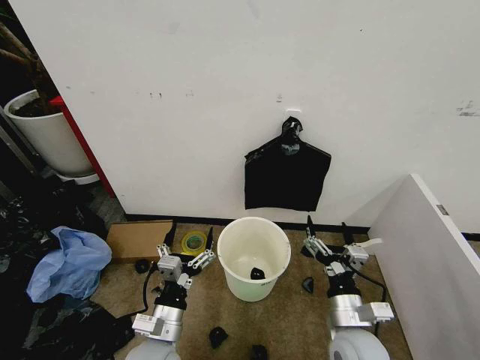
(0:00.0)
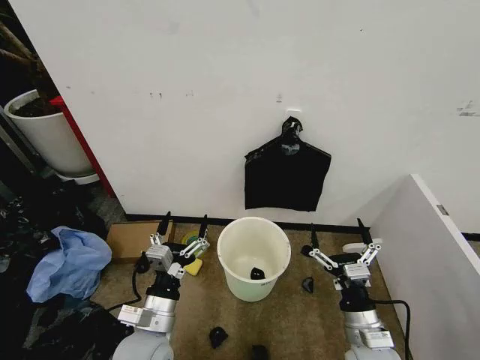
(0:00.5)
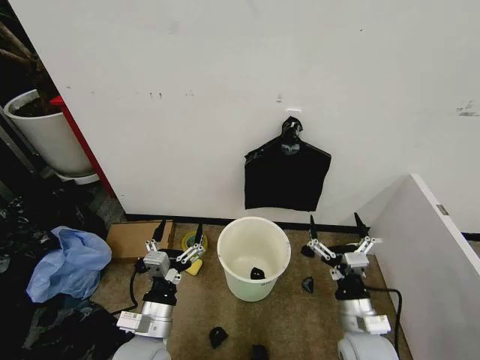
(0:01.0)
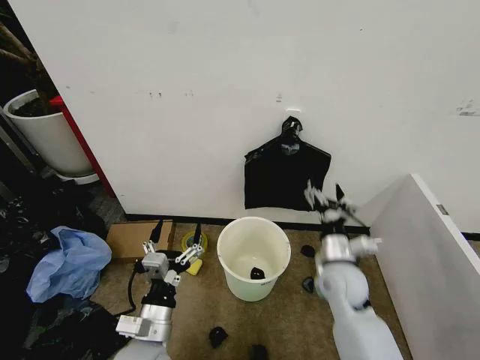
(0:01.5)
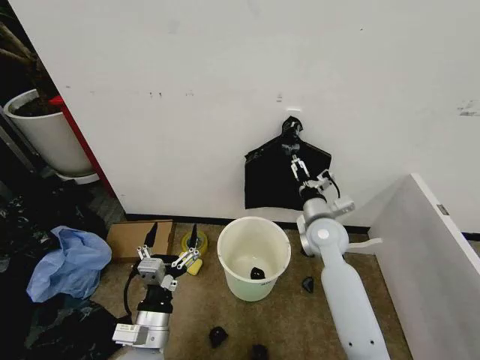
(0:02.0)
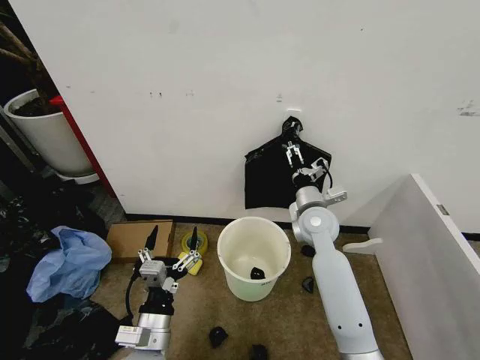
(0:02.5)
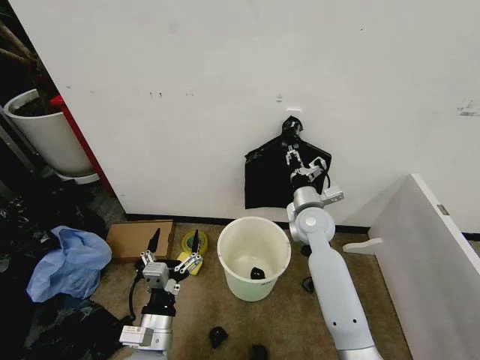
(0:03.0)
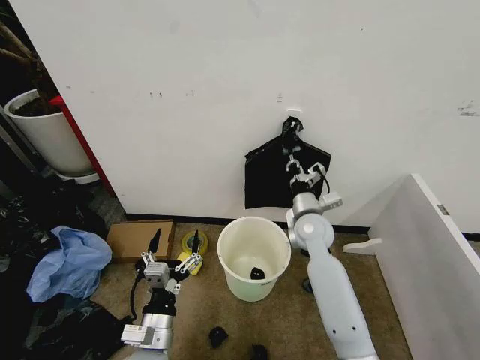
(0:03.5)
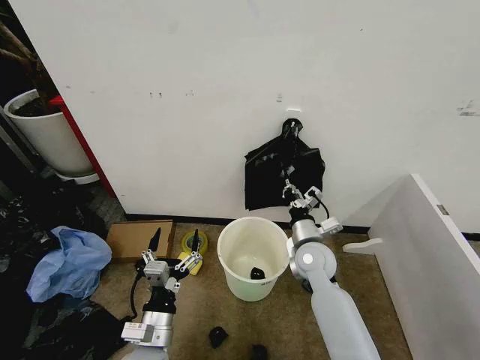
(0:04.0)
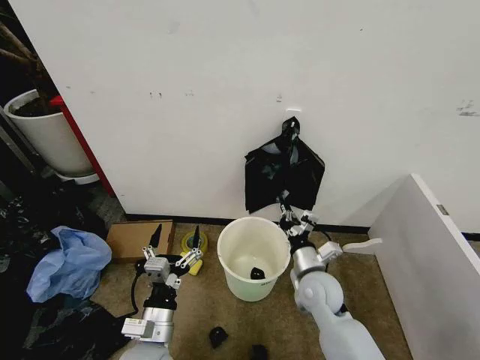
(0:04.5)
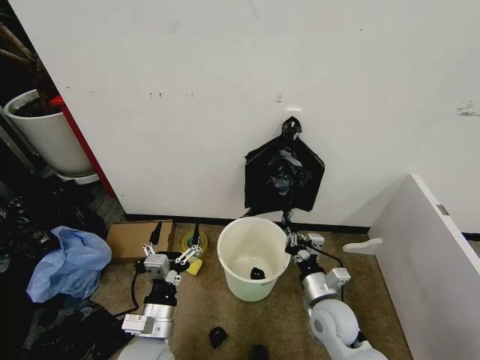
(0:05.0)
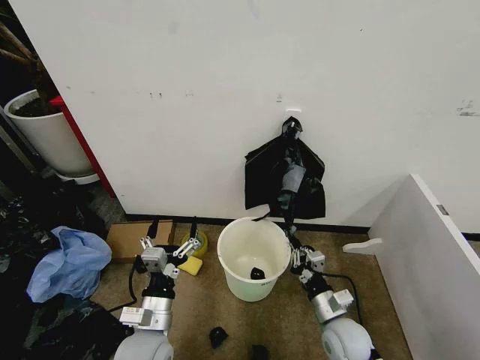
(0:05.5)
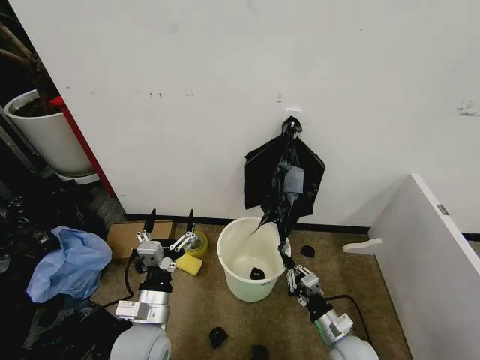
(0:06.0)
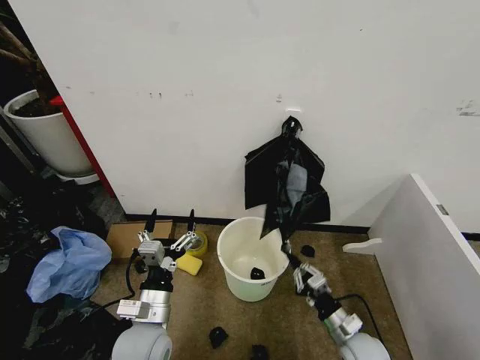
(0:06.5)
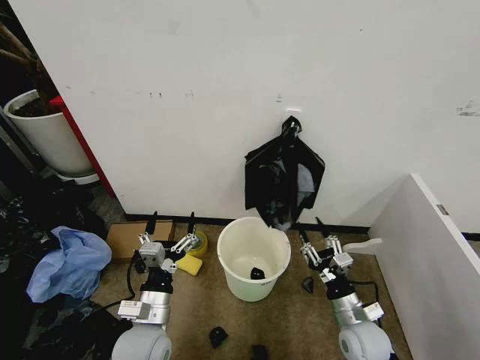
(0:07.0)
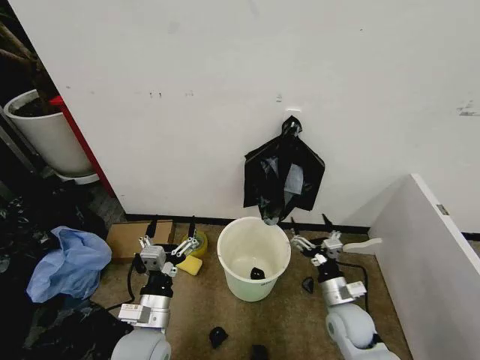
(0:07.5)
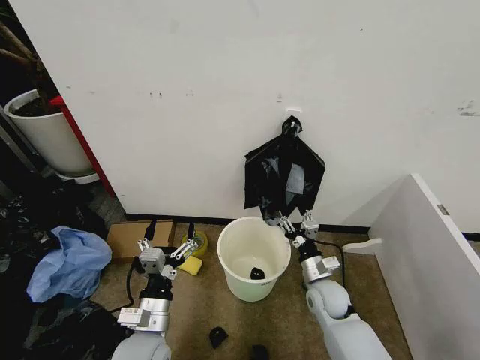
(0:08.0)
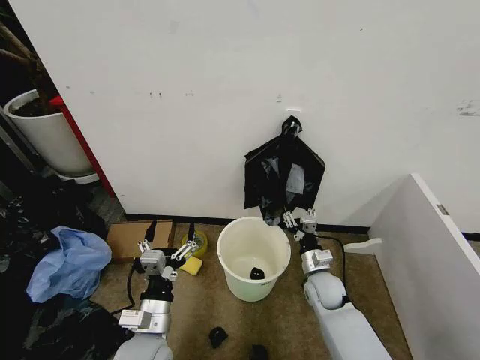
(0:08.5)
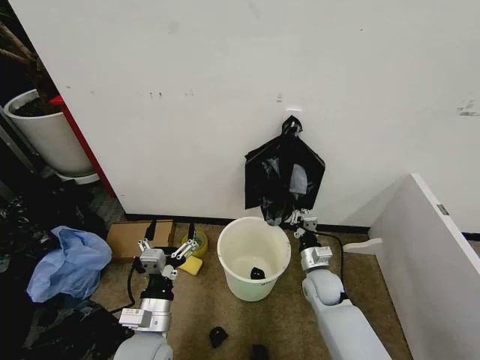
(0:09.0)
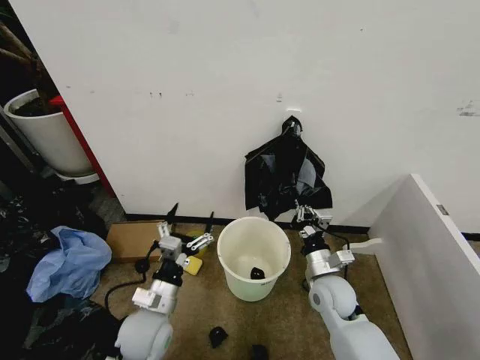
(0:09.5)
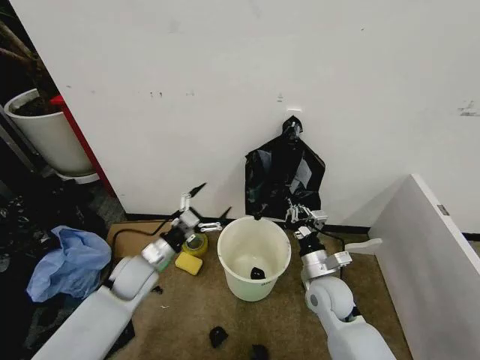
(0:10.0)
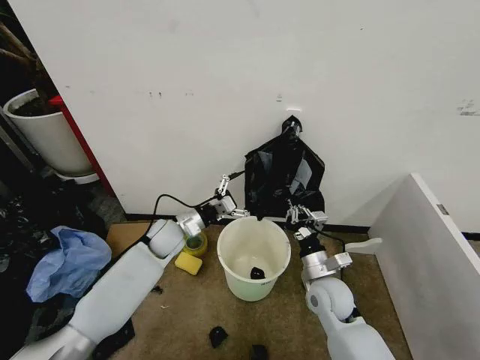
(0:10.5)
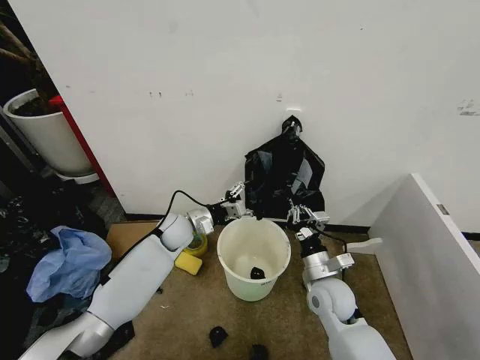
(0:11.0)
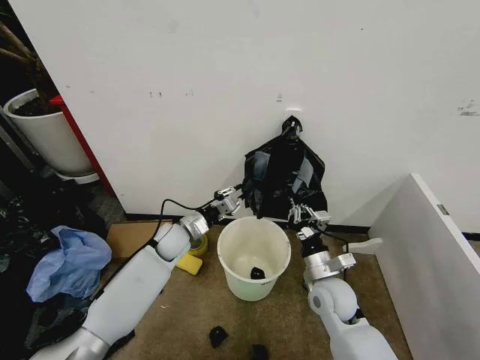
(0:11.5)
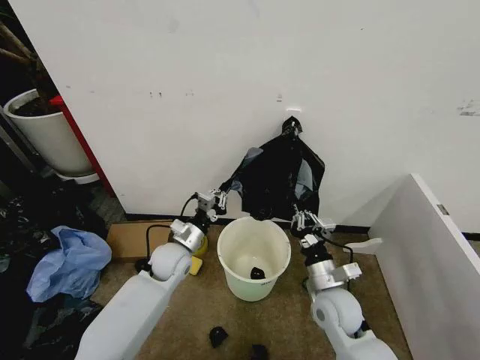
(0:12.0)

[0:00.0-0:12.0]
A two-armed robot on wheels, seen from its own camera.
Task of the whole recording: Place the garbage bag over the trash bin.
0:02.0 to 0:04.0: The right gripper travels downward by about 5 cm, and closes.
0:04.0 to 0:06.0: The right gripper goes roughly 25 cm backward, downward and to the right.
0:06.0 to 0:08.0: The right gripper travels forward by about 10 cm, and opens its fingers.
0:08.0 to 0:10.0: The right gripper shifts some 5 cm upward, and closes its fingers; the left gripper heads forward and to the left, covering about 15 cm.
0:10.0 to 0:12.0: The left gripper goes about 5 cm to the right, moves about 15 cm forward and comes back, and closes up.

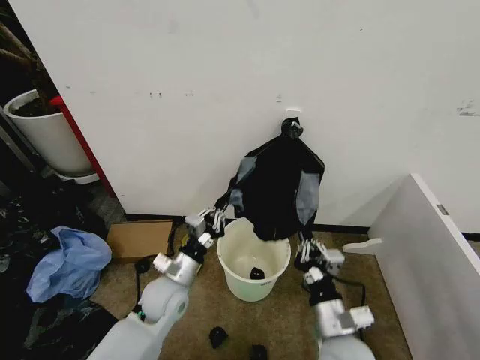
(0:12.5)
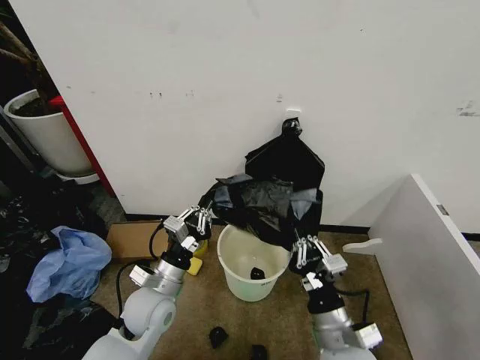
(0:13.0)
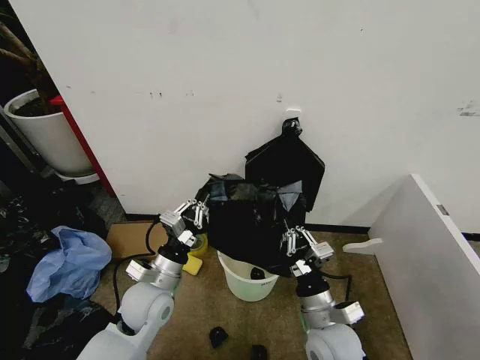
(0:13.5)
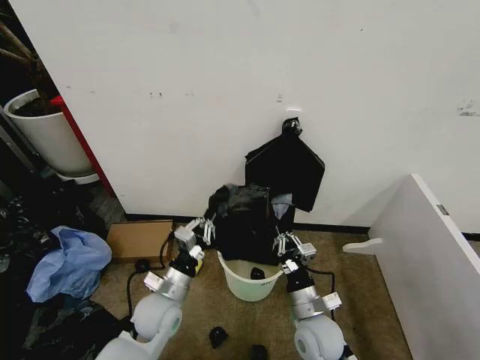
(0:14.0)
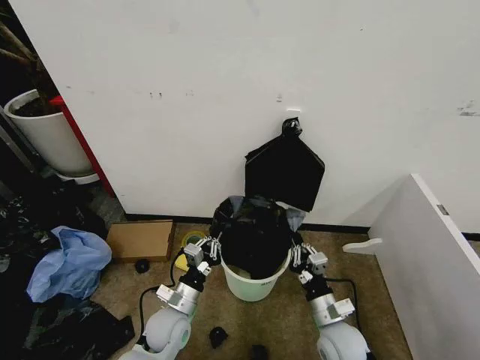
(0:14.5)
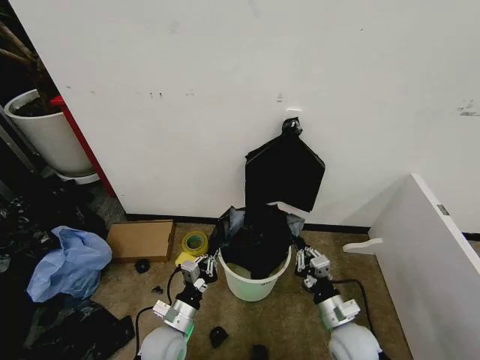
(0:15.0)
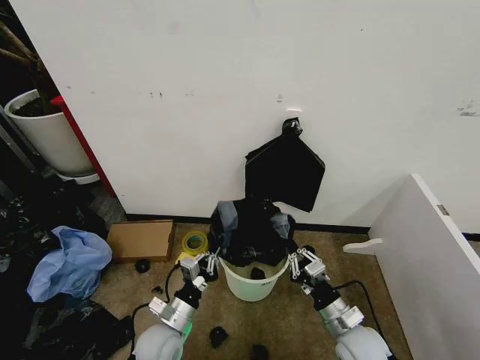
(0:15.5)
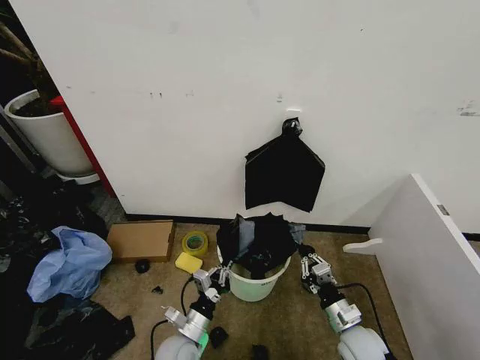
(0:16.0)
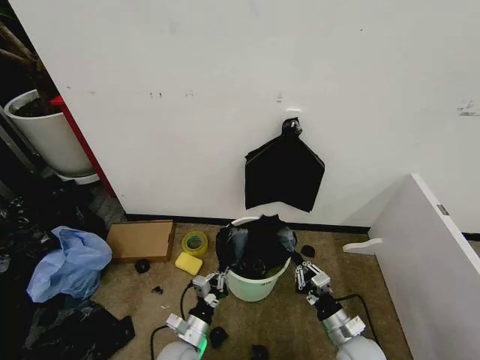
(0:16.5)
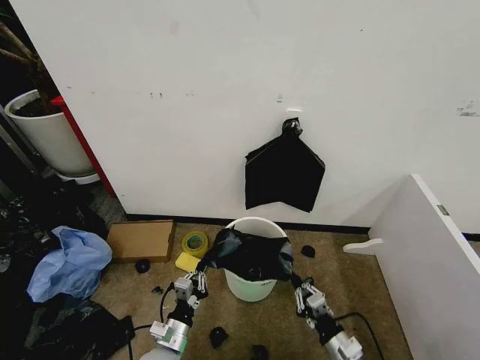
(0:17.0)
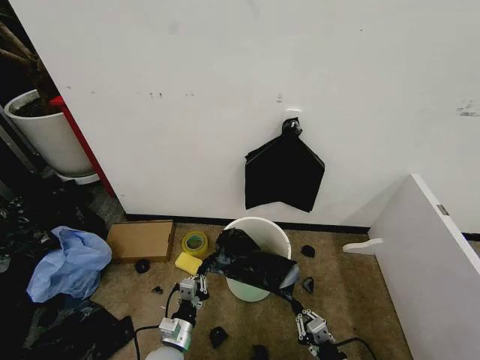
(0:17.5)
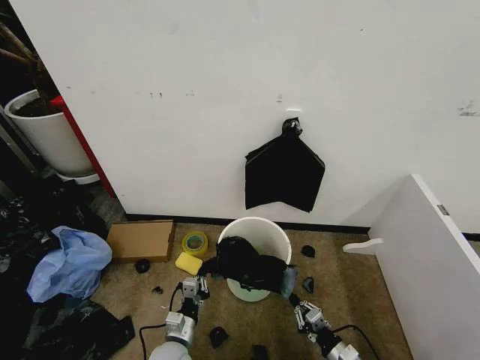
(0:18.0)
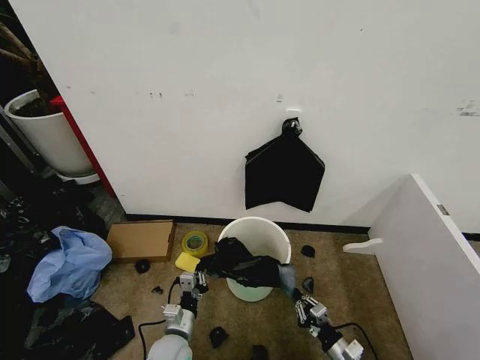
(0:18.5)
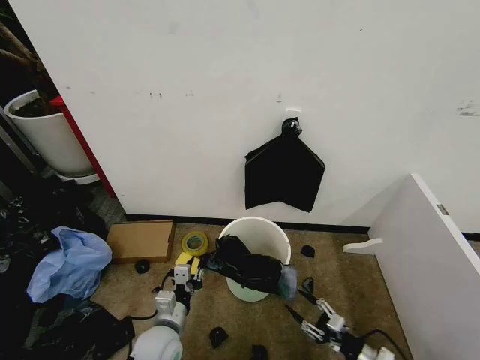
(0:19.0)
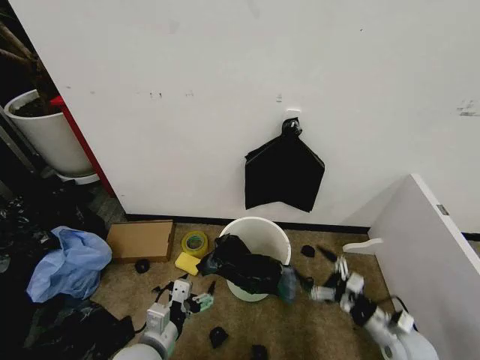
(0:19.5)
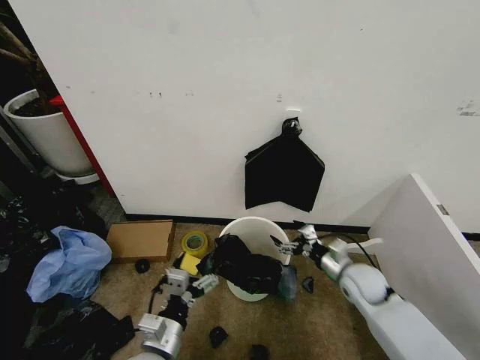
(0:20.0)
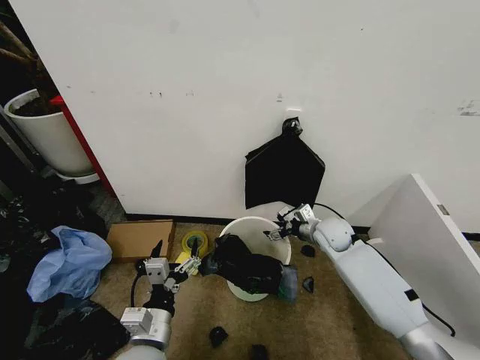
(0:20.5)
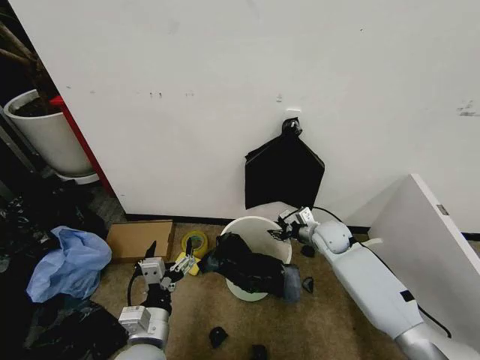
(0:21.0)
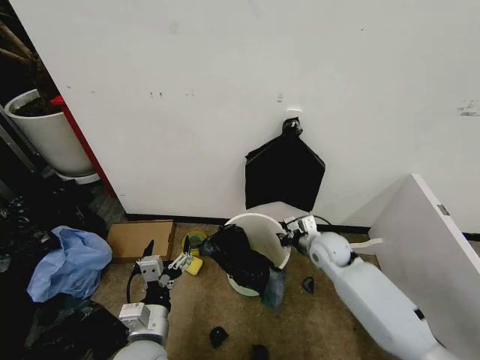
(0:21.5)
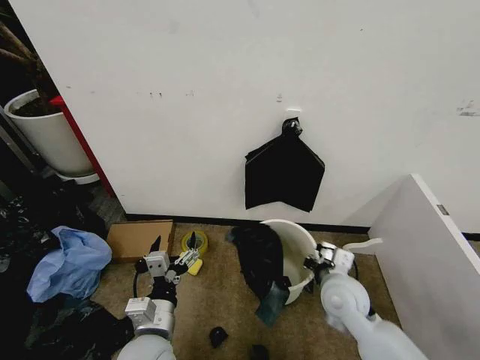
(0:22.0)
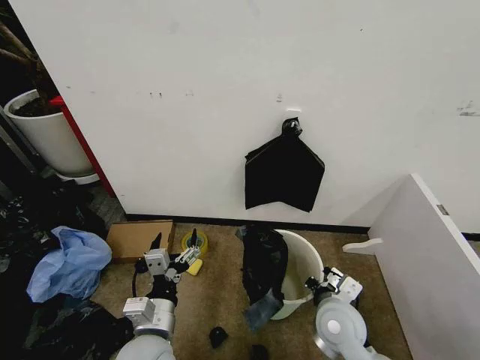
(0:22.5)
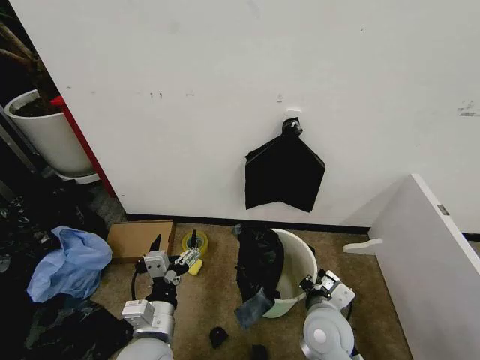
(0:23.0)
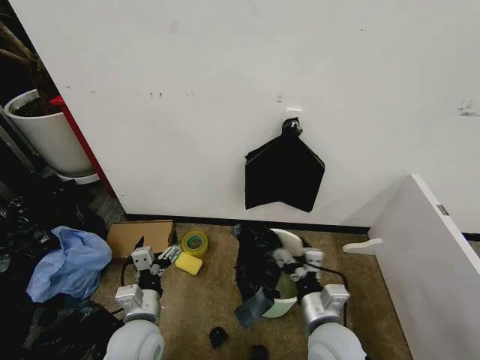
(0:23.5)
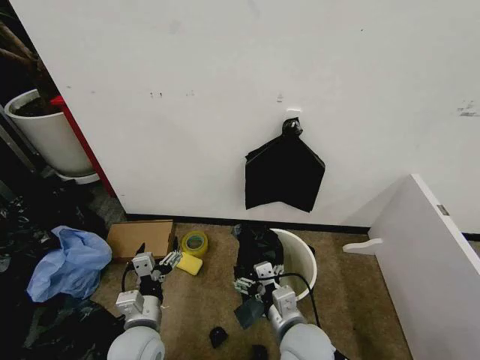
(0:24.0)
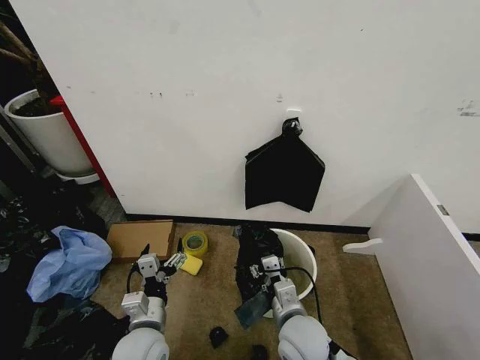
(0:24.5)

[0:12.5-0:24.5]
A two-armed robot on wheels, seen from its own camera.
Task of the whole recording: Place the garbage bag over the trash bin.
0:12.5 to 0:14.5: The left gripper moves downward, about 5 cm; the right gripper is displaced downward and forward by approximately 10 cm.
0:14.5 to 0:16.5: The left gripper goes roughly 10 cm downward and backward, while the right gripper shifts roughly 5 cm to the right.
0:16.5 to 0:18.5: The right gripper is displaced downward by some 10 cm.
0:18.5 to 0:20.5: The left gripper travels upward by roughly 15 cm, and opens up. The right gripper moves forward and upward, some 35 cm, and opens up.
0:20.5 to 0:22.5: The right gripper is displaced backward by roughly 20 cm, and closes up.
0:22.5 to 0:24.5: The right gripper moves to the left, roughly 10 cm, and opens its fingers; the left gripper shifts by approximately 5 cm.

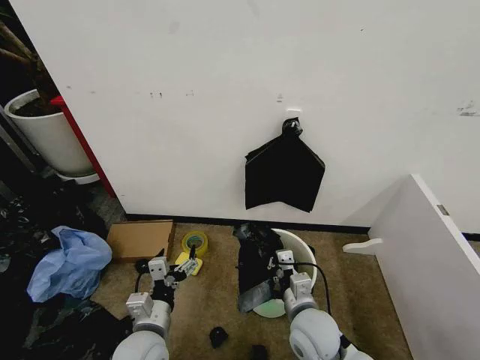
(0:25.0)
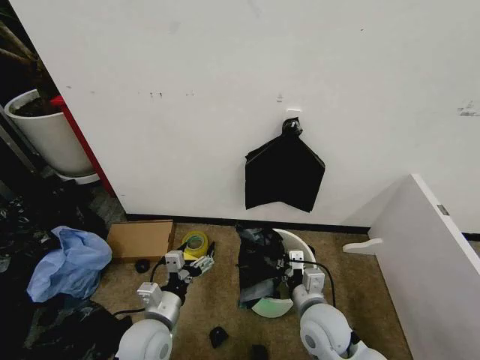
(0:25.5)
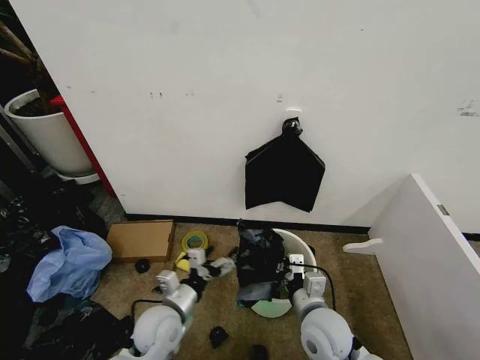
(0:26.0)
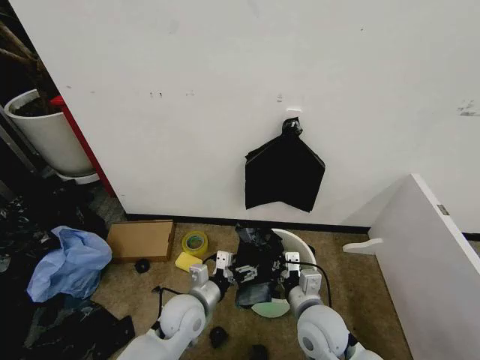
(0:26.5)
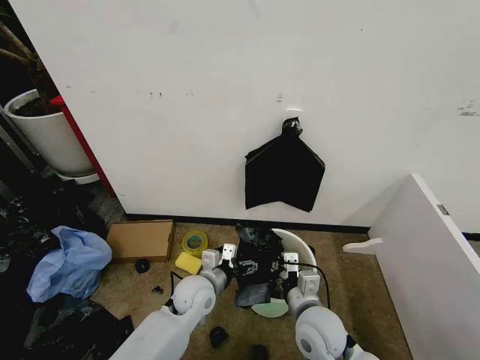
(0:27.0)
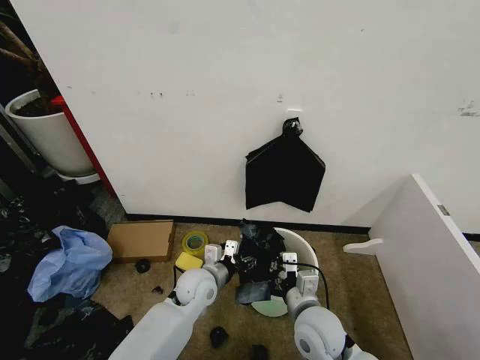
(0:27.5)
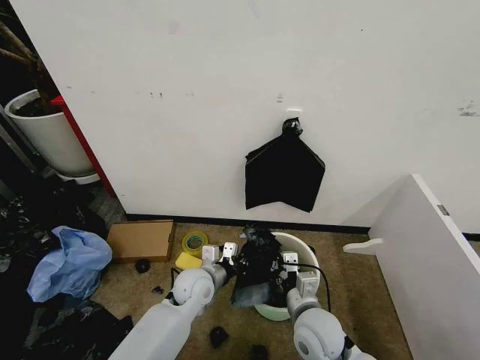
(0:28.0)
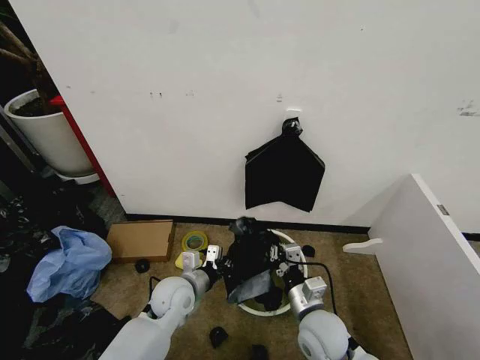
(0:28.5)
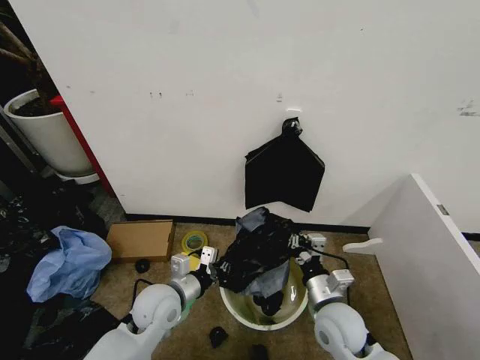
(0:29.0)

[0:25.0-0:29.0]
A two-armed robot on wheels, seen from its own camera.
Task of the whole recording: Place the garbage bag over the trash bin.
0:25.0 to 0:27.0: The left gripper is displaced forward and to the right by some 15 cm.
0:27.0 to 0:29.0: The left gripper is displaced to the left by roughly 5 cm, and closes up.
